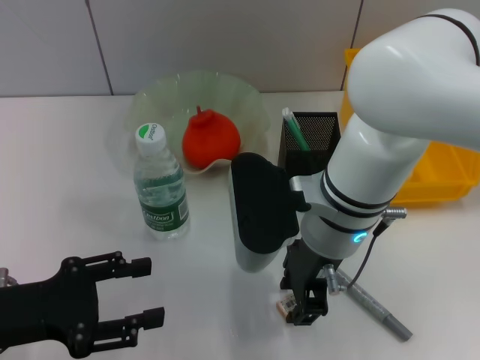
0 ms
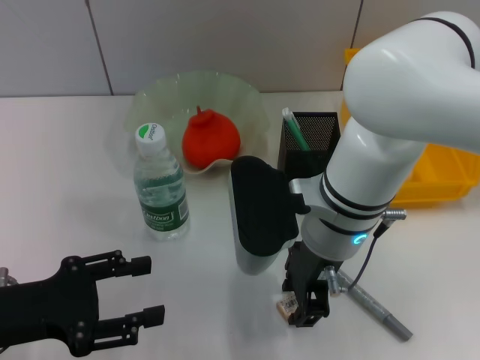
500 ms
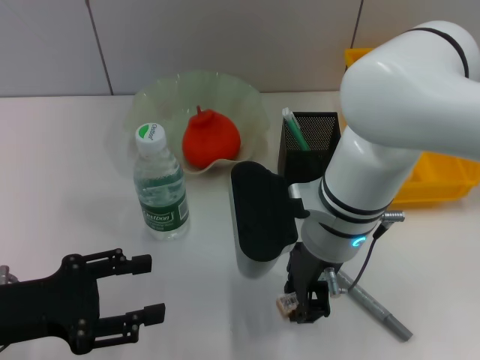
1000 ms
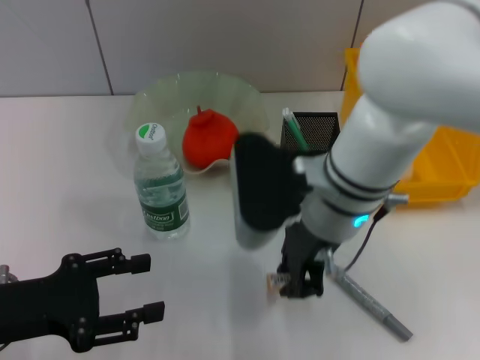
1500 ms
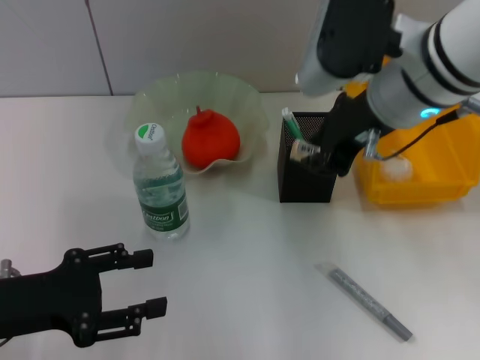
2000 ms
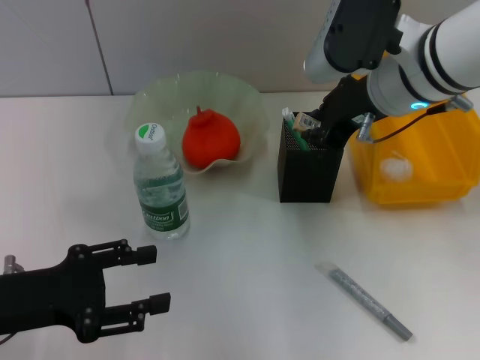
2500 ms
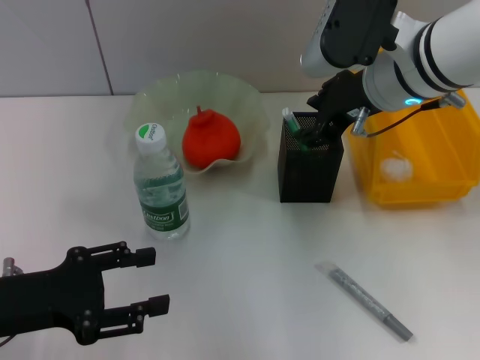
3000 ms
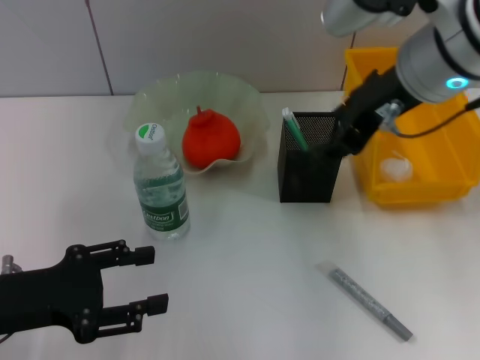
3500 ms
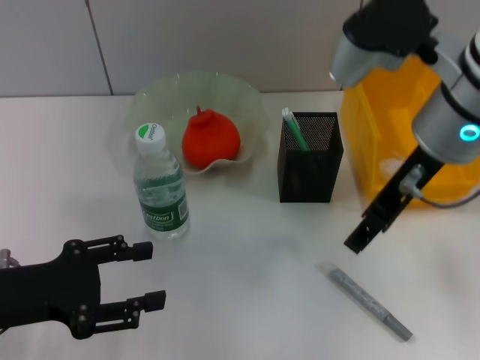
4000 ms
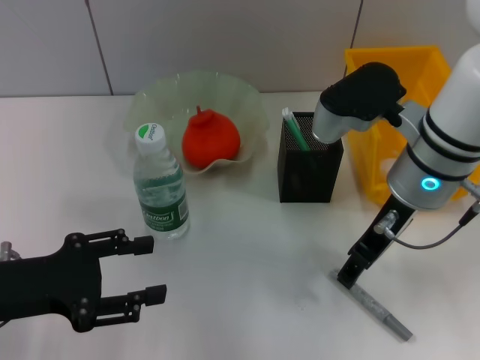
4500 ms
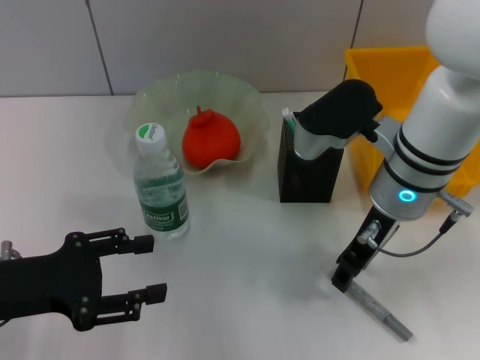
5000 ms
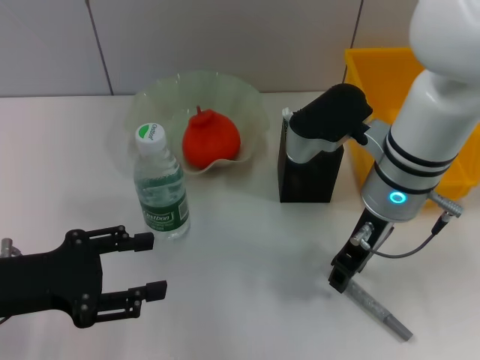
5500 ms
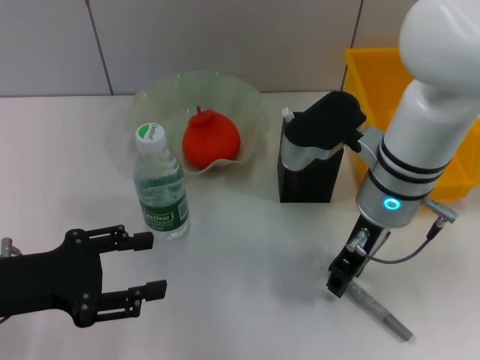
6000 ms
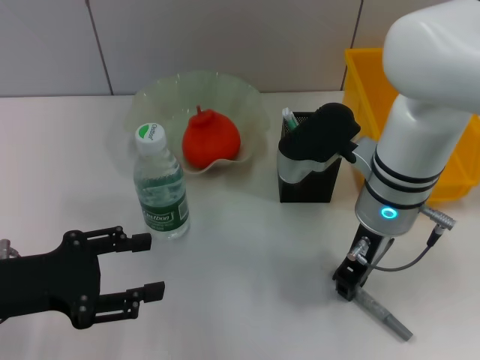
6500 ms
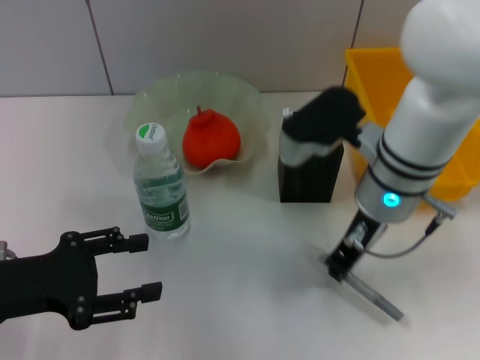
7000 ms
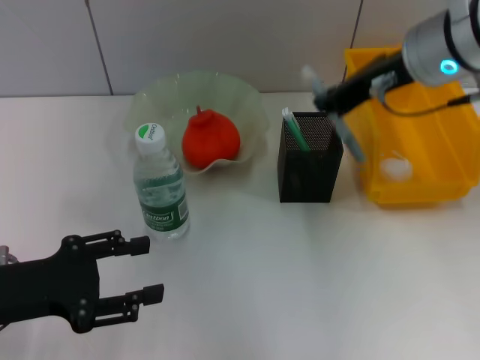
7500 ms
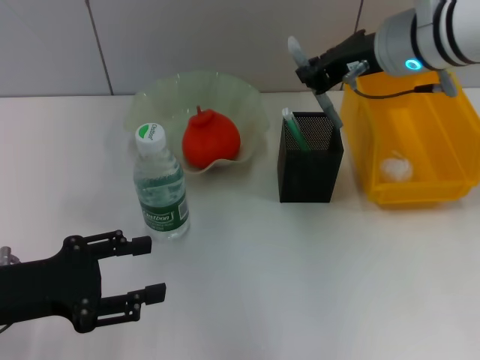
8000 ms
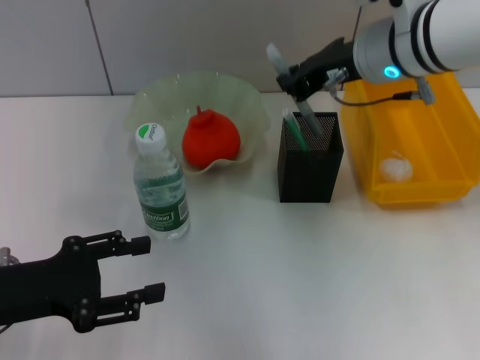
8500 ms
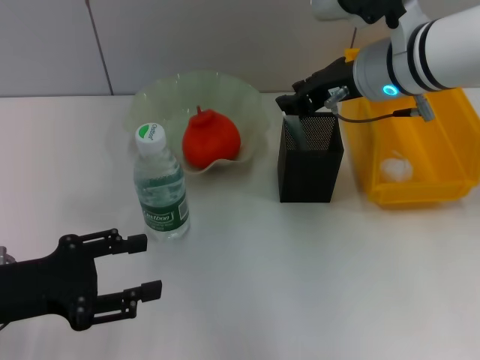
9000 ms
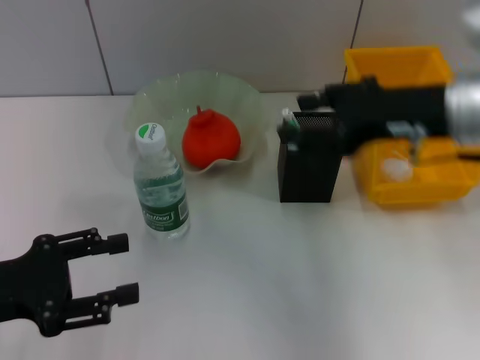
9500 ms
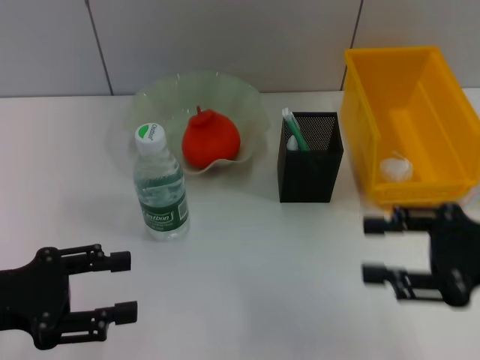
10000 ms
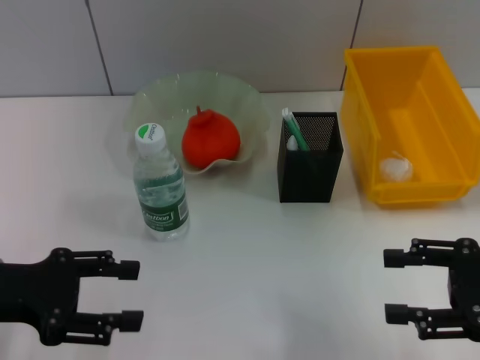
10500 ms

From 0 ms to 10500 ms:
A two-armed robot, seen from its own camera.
Step, from 1500 ms to 2500 ms: Put the eraser into the pen holder with the right hand.
Step, from 3000 ms to 6500 ms: Grab the gray glue with the right hand.
Step, from 7000 ms to 9000 ms: Place the gray glue into the pen holder with the right hand.
From 0 ms to 2000 ms: The right gripper travels upward and to the right by approximately 10 cm, and closes.
From 2000 ms to 4000 ms: The right gripper opens its fingers.
From 4000 ms to 6500 ms: The right gripper shifts about 10 cm downward, and closes.
From 6500 ms to 8500 ms: The right gripper heads upward and forward, covering some 10 cm.
From 8500 ms to 10500 ms: The right gripper goes roughly 25 cm backward, to the right and downward, and opens up.

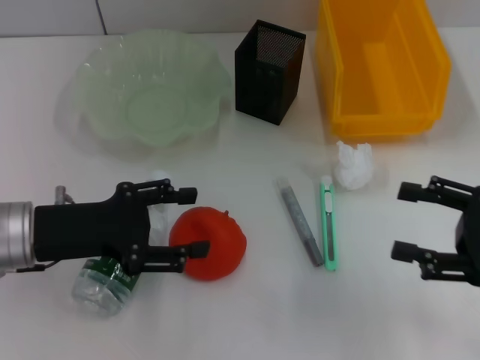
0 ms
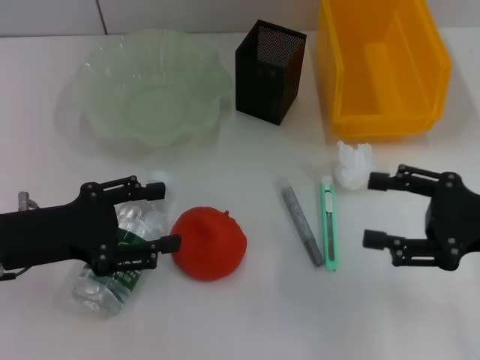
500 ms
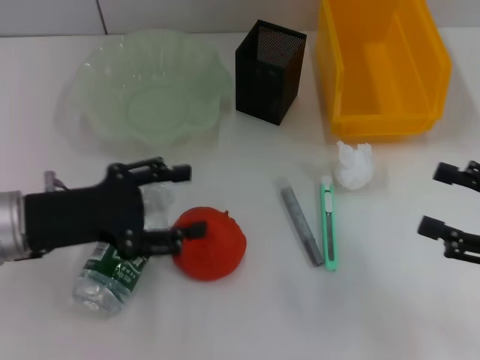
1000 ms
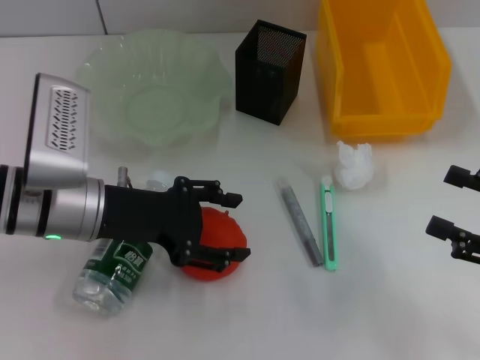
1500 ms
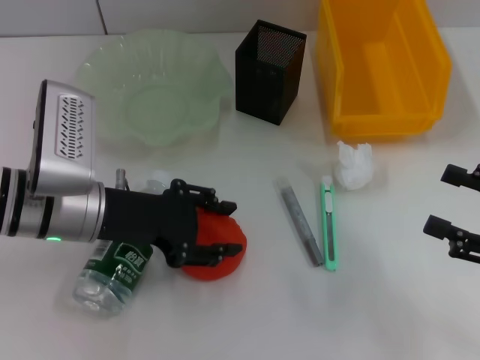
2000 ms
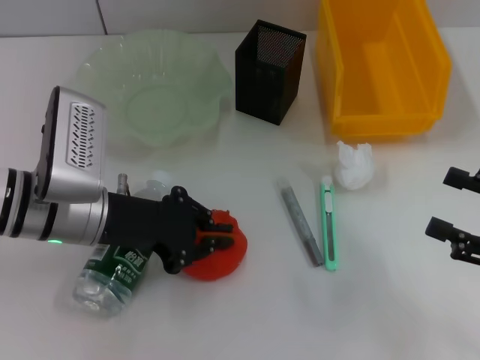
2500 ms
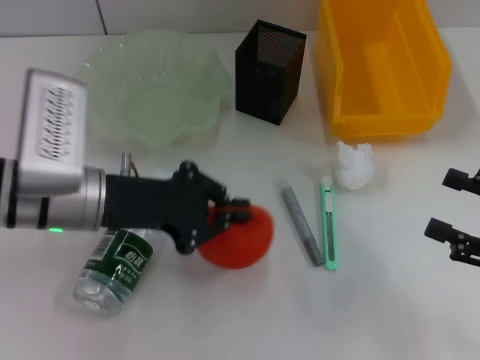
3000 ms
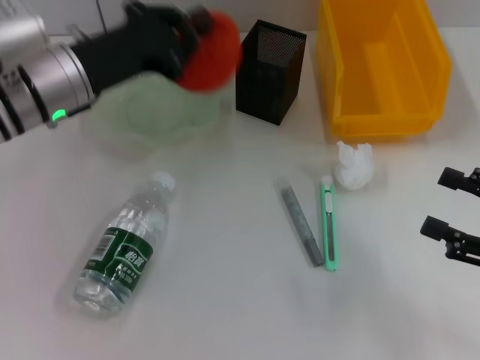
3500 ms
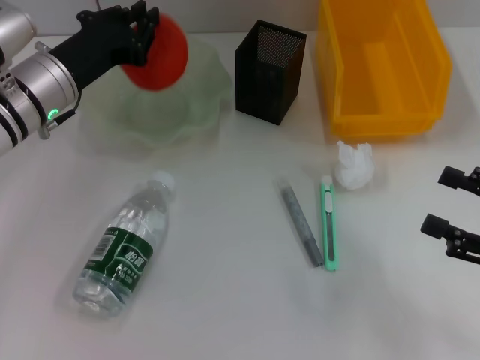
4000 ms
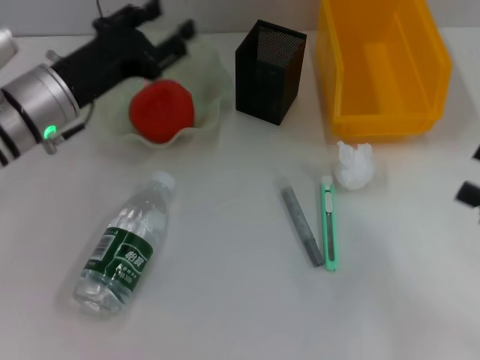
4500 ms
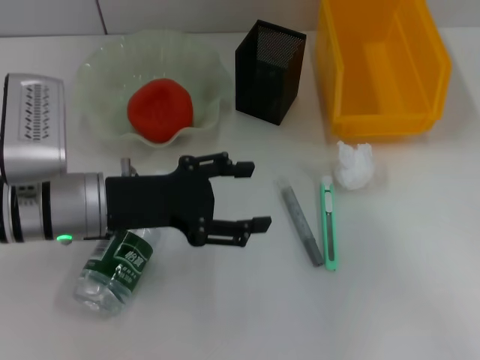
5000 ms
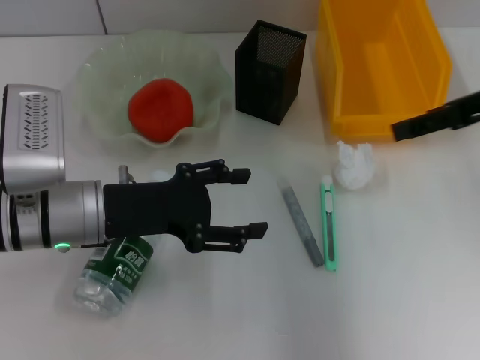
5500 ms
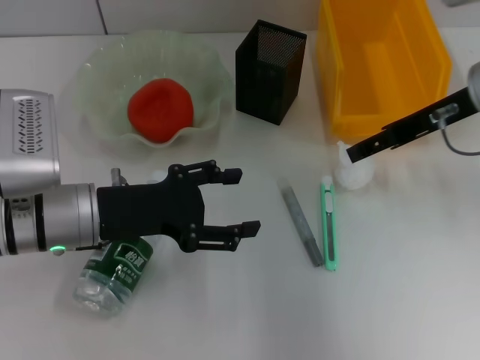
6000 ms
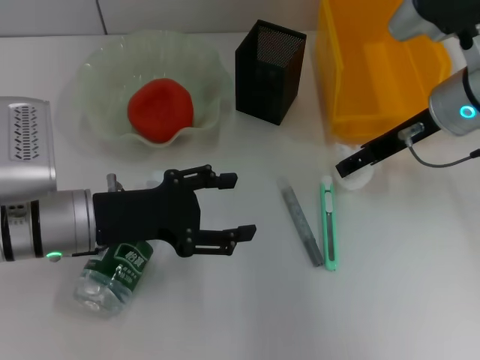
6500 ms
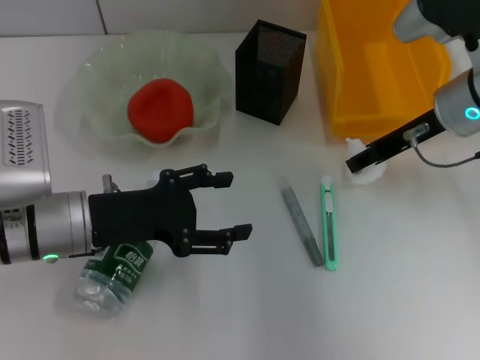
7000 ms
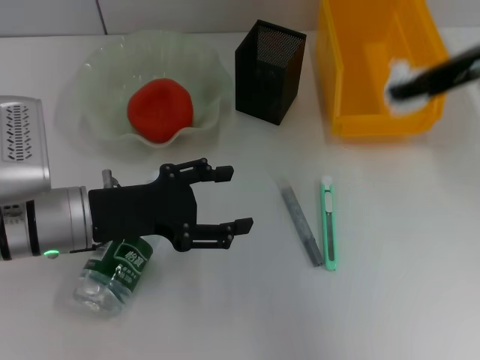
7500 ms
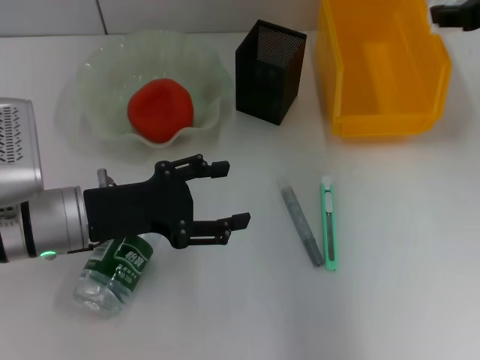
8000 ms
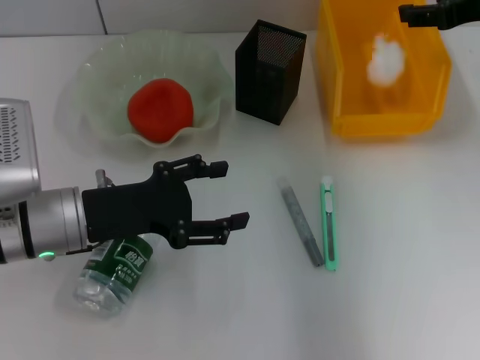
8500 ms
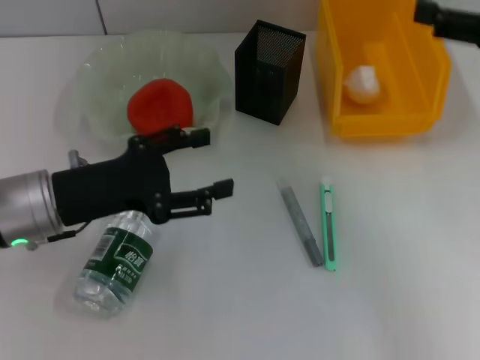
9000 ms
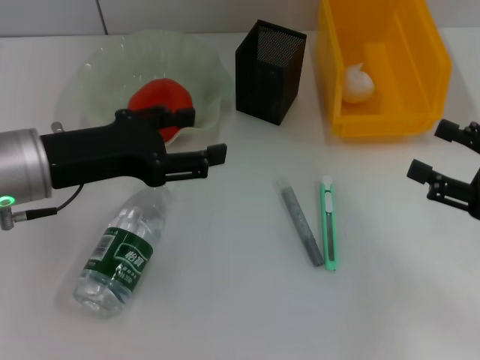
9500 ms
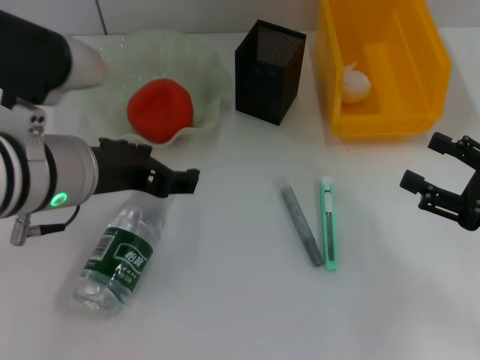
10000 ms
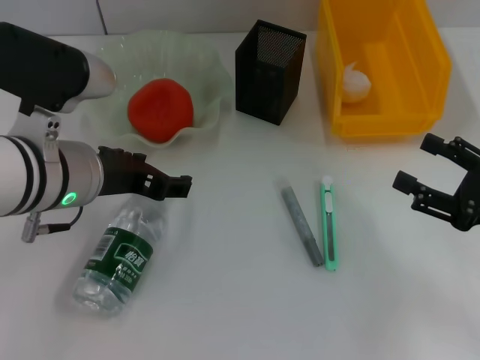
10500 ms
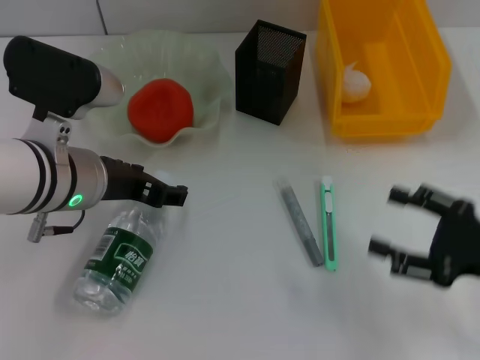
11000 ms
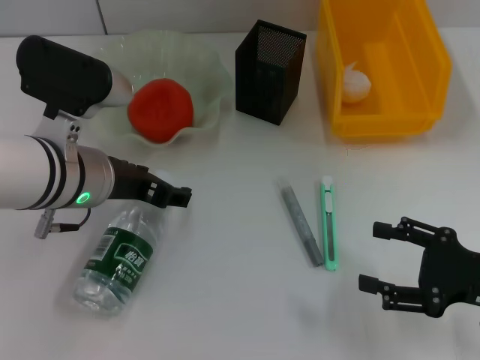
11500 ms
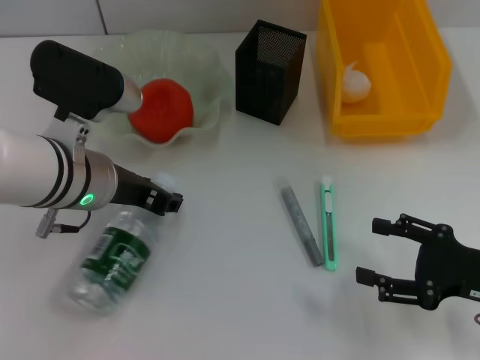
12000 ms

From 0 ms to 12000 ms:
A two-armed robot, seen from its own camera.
Step, from 0 ms to 2500 ms: Grab the orange with the left hand.
Step, from 3000 ms to 4000 ms: Place the orange into the fruit bowl with the left hand.
Step, from 5000 ms to 6500 ms: Grab the paper ball with the right hand.
Step, from 7000 ms to 8500 ms: Place the paper ball into the trash can with the right hand.
From 0 ms to 2000 ms: The left gripper travels to the right by about 5 cm.
From 2000 ms to 4000 ms: The left gripper moves forward, some 10 cm, and closes its fingers.
From 4000 ms to 6000 ms: The right gripper travels forward, to the left and upward by about 25 cm; the left gripper shifts some 10 cm backward, and opens up.
From 6000 ms to 8000 ms: The right gripper goes some 5 cm to the right.
From 8000 ms to 10000 ms: The right gripper travels backward and downward by about 25 cm, and opens. The left gripper is displaced upward by roughly 10 cm.
From 10000 ms to 12000 ms: The left gripper shifts roughly 5 cm downward.

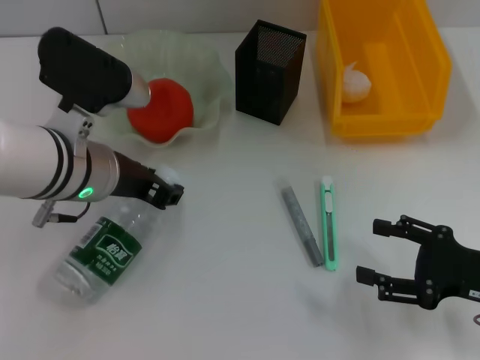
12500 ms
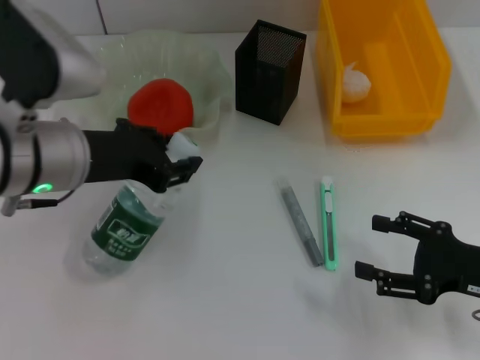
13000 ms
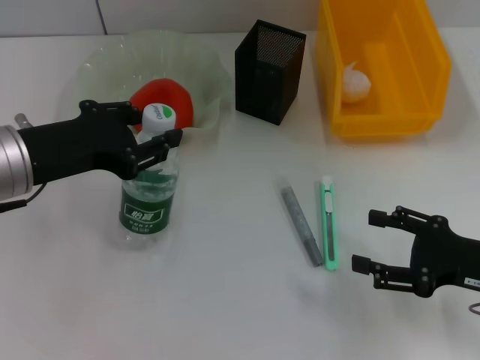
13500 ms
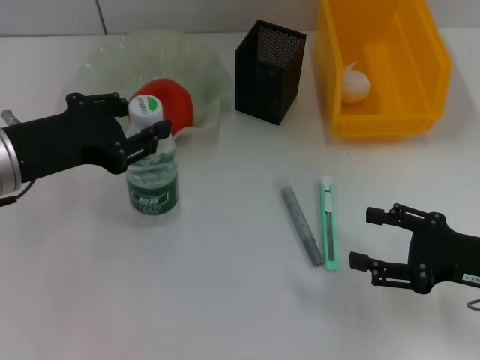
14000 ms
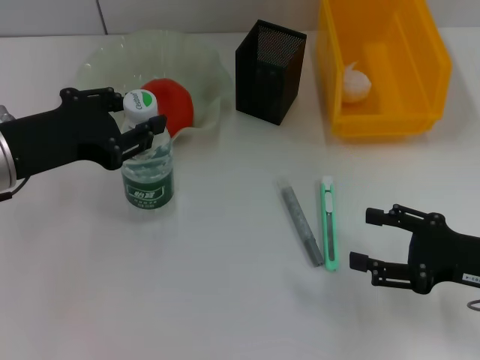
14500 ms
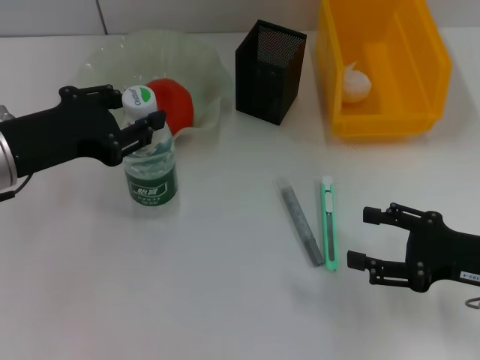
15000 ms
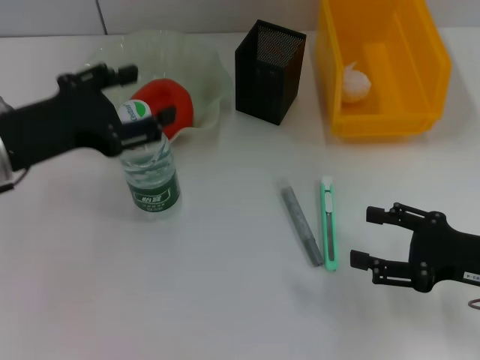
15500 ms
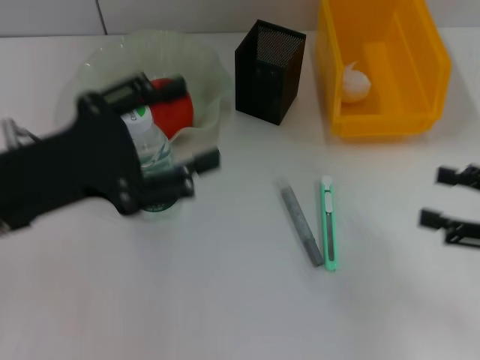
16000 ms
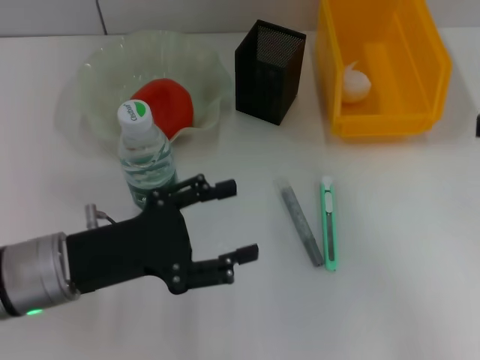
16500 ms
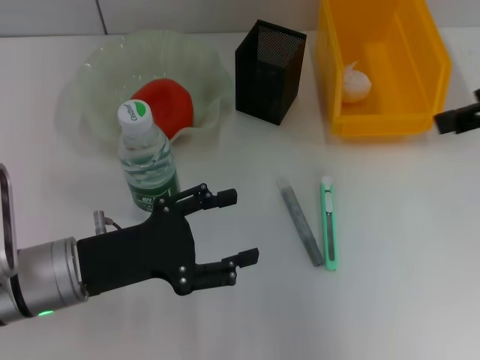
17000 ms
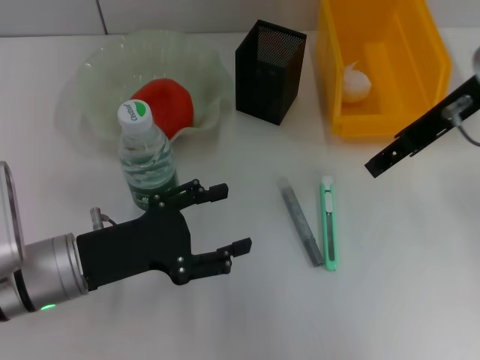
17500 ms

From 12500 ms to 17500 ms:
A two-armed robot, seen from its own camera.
Step, from 12500 ms to 15500 ms: Place the water bottle on the table with the left hand.
From 12500 ms to 15000 ms: The left gripper moves to the left, some 10 cm.
From 15000 ms to 17500 ms: The right gripper is displaced upward, forward and to the left by approximately 25 cm, while the left gripper heads downward, covering some 10 cm.
